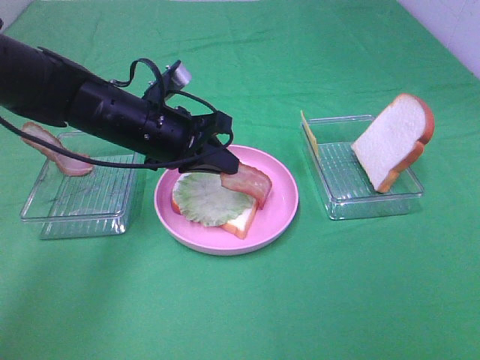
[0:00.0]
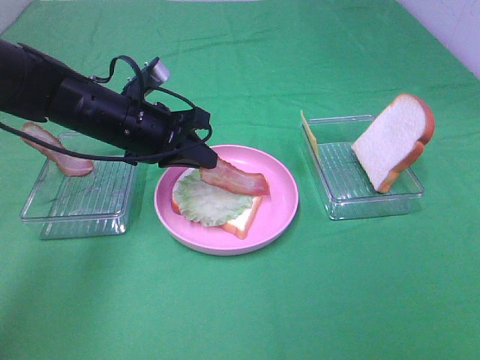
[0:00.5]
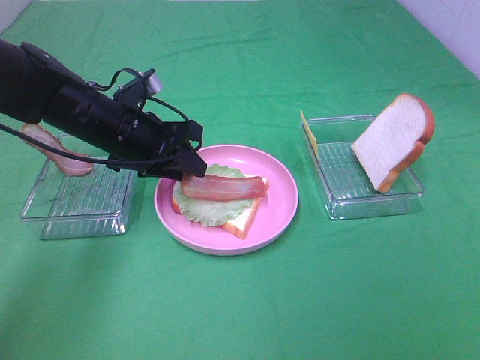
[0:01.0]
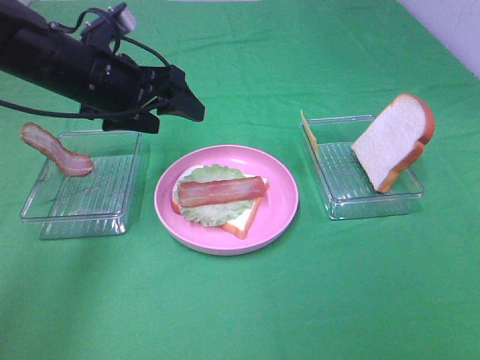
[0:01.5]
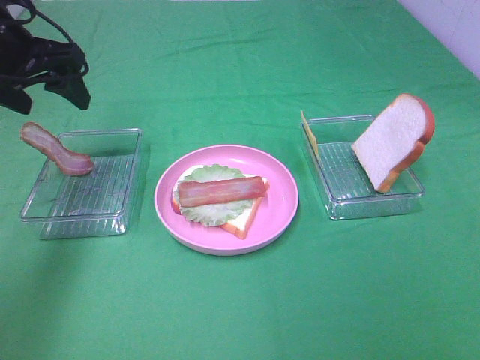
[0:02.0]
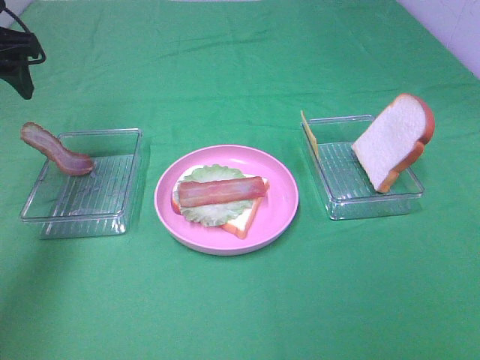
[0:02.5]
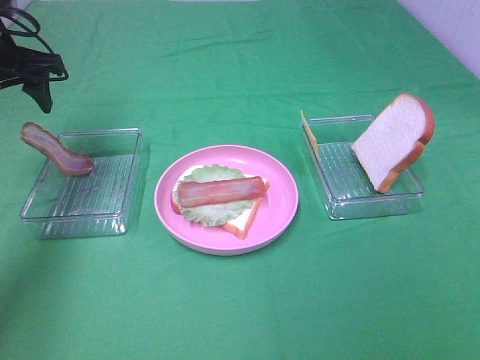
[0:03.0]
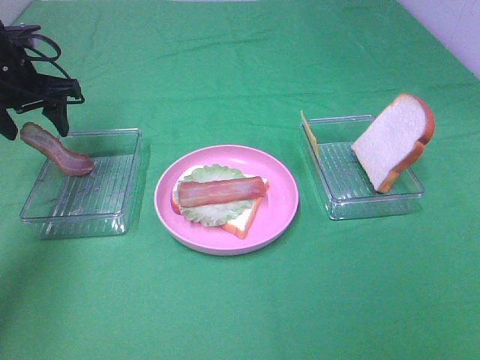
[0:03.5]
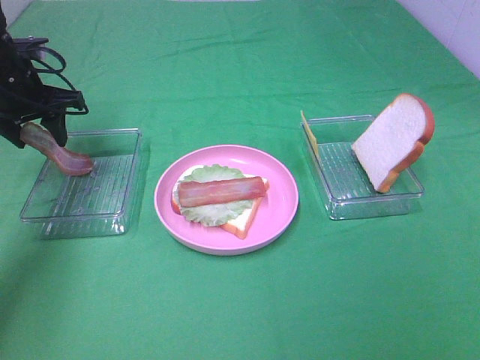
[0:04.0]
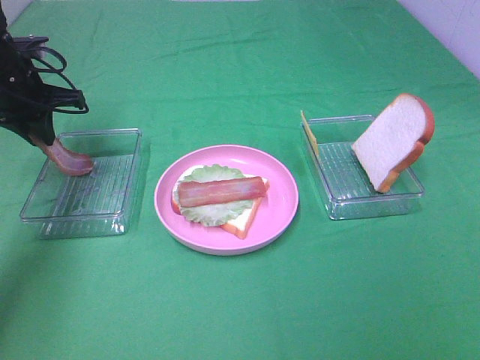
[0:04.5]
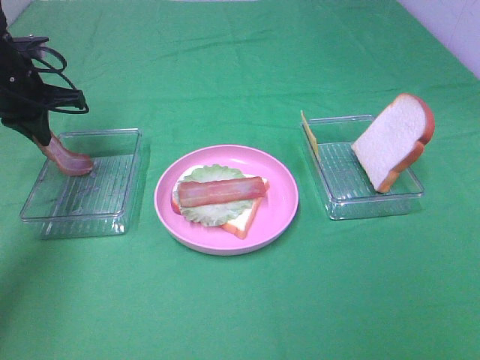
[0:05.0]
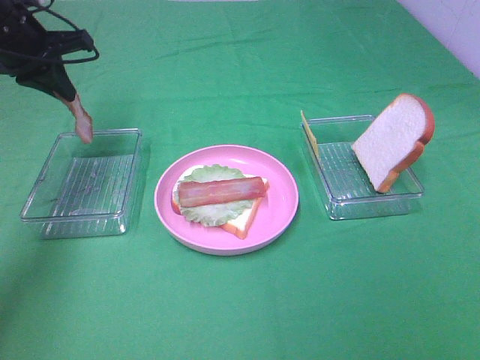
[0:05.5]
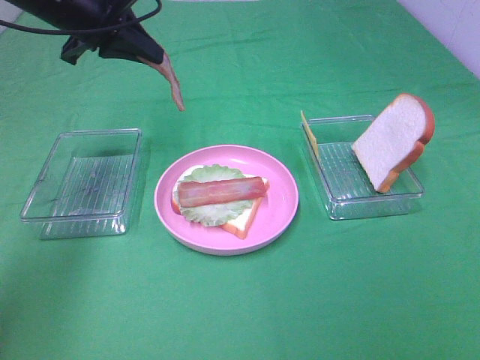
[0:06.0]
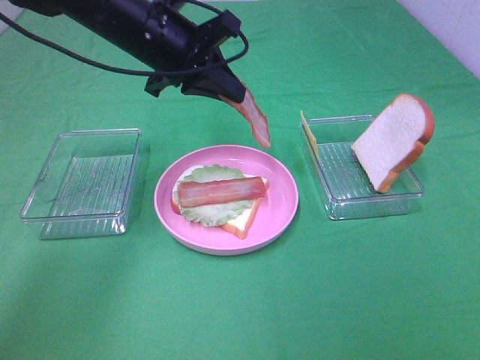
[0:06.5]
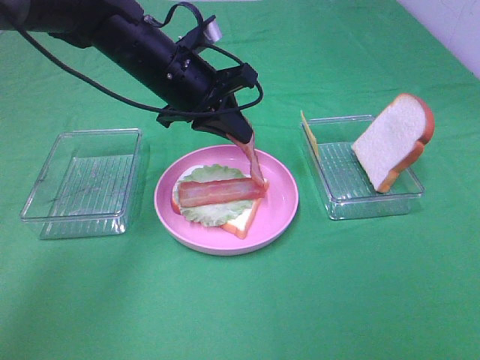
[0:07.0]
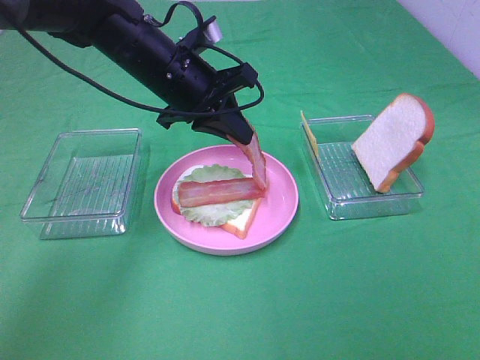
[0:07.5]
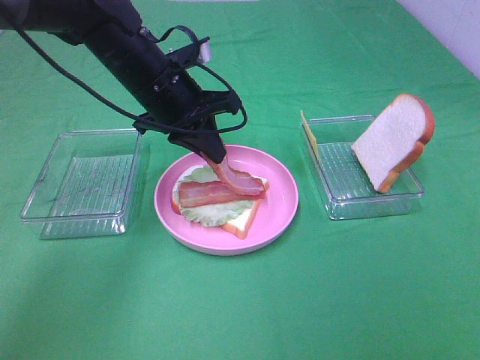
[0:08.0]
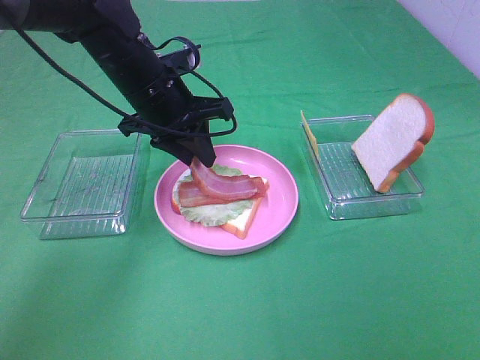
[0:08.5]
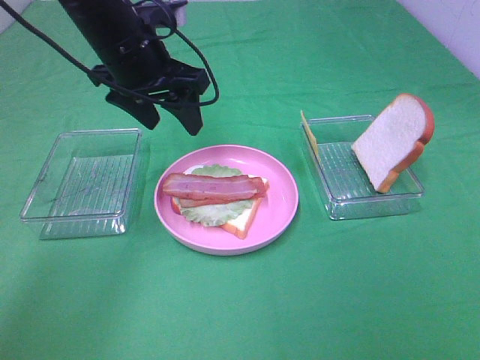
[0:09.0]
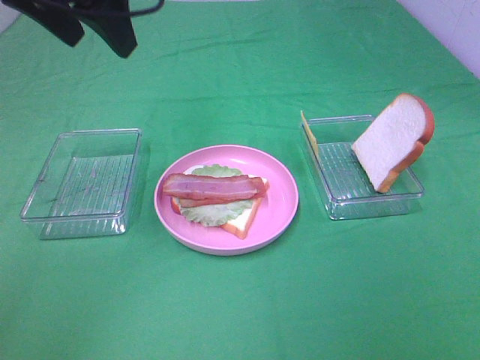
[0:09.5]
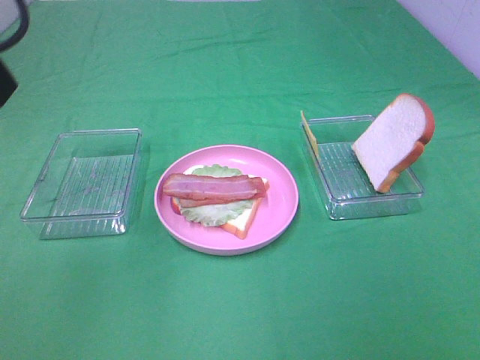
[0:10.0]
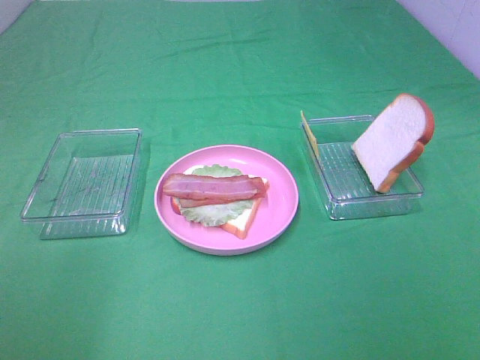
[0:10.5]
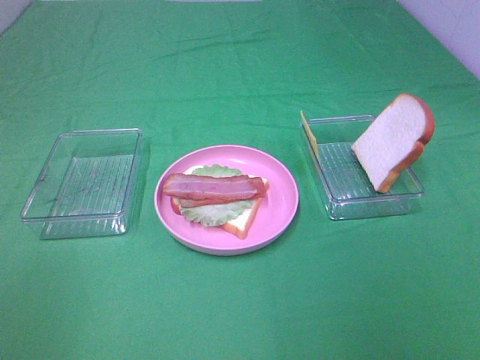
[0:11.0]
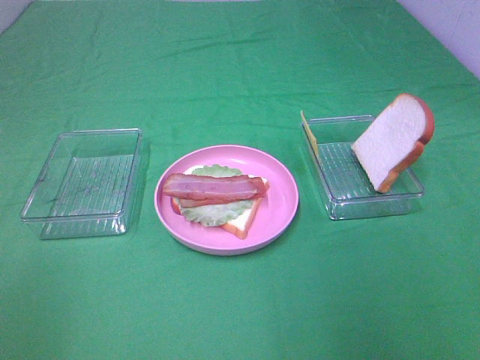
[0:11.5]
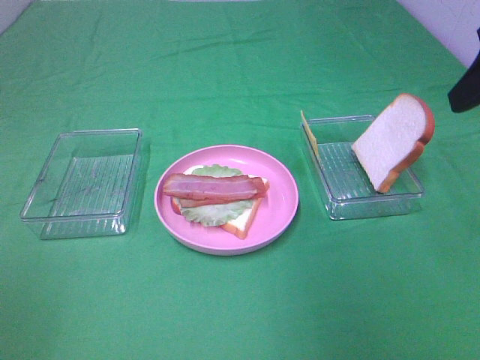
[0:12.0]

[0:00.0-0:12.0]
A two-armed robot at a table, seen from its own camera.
Task of the whole recording: Make sandwiches.
Step, 1.5 to 5.0 s: Left hand:grab the bacon.
Step, 5.5 to 9.0 s: Left hand:place bacon on bacon.
0.0 to 2.0 s: The left gripper travels to the left and upward by roughly 20 cm, and opens.
2.0 to 4.0 s: The left gripper is displaced downward and forward by roughly 10 cm.
4.0 to 6.0 s: The left gripper goes roughly 15 cm to the right and upward, and closes its fingers.
6.0 to 8.0 s: The left gripper travels to the right and downward by some 10 cm.
8.0 to 10.0 s: The left gripper travels backward, upward and to the left by approximately 30 cm, and opens.
10.0 to 12.0 s: The right gripper shifts approximately 25 cm forward, while the left gripper heads backward, to the left and downward, covering roughly 25 cm.

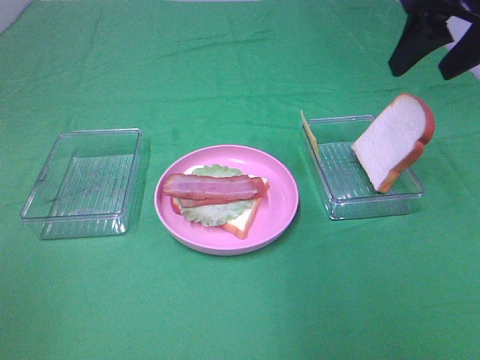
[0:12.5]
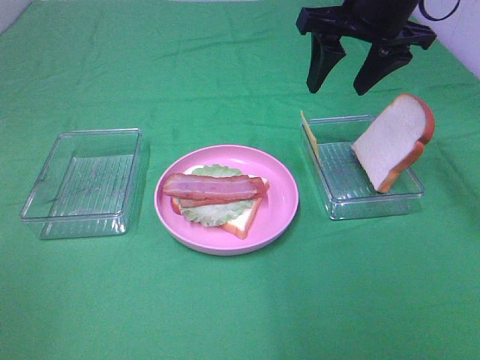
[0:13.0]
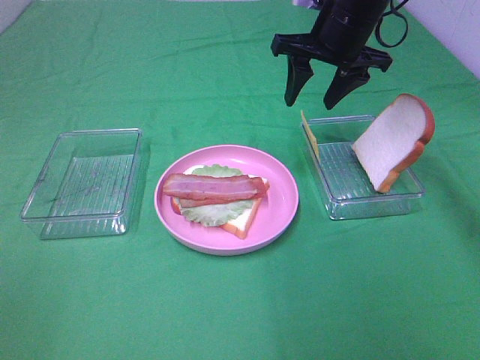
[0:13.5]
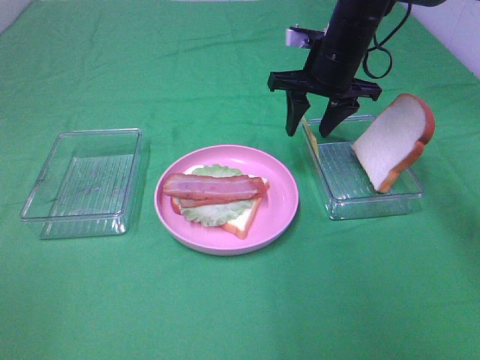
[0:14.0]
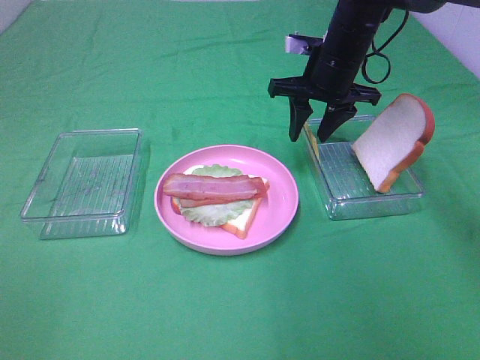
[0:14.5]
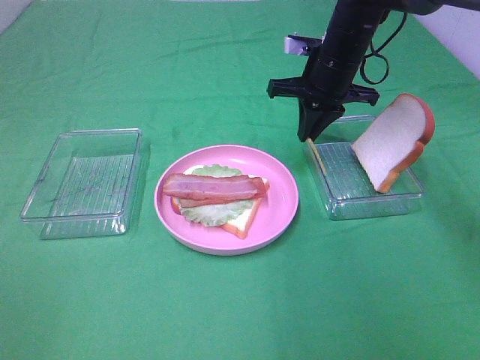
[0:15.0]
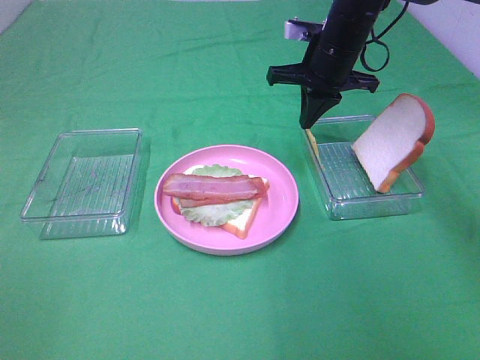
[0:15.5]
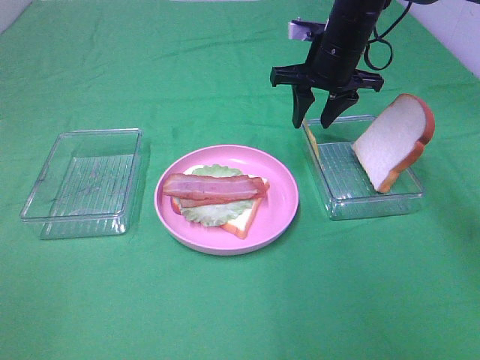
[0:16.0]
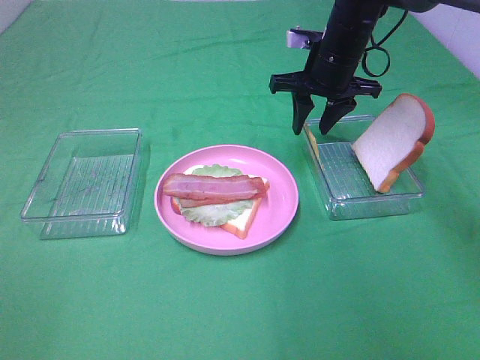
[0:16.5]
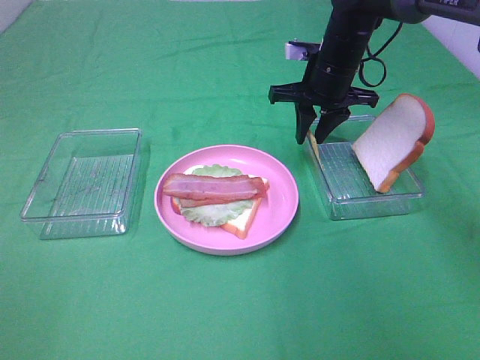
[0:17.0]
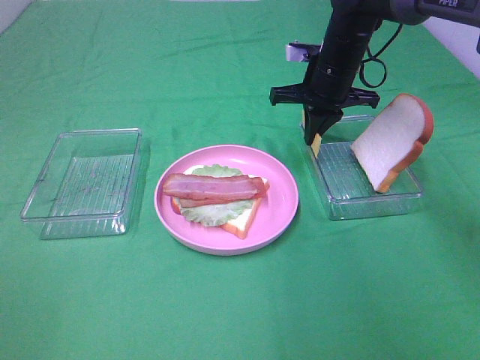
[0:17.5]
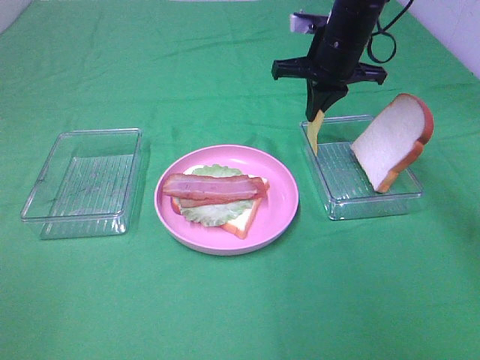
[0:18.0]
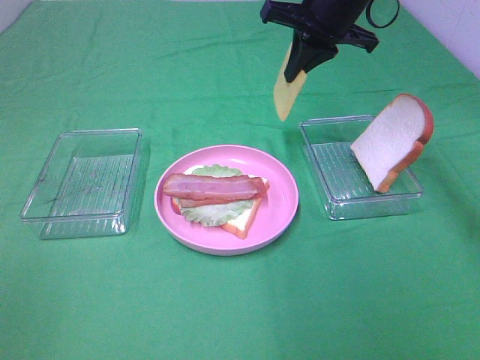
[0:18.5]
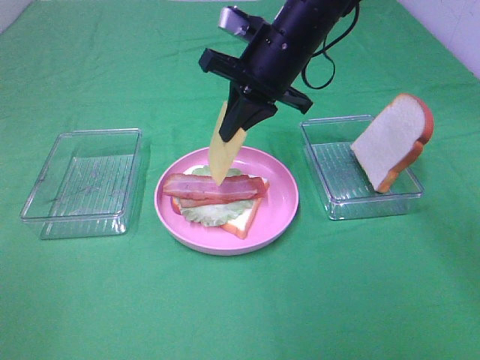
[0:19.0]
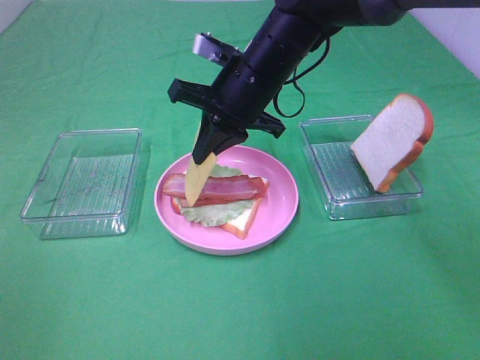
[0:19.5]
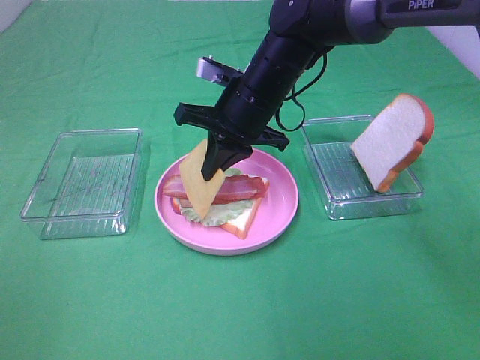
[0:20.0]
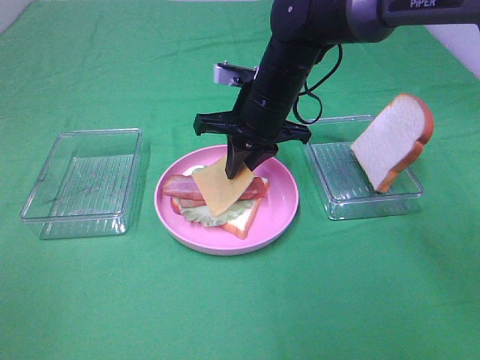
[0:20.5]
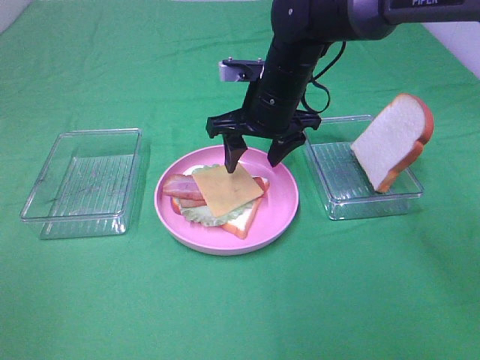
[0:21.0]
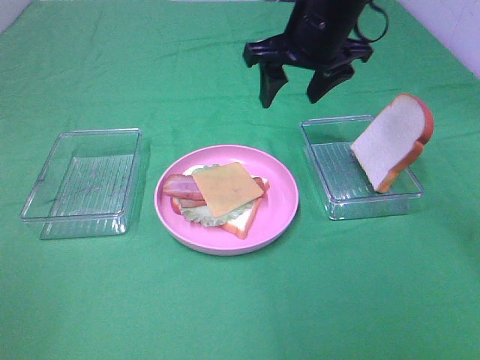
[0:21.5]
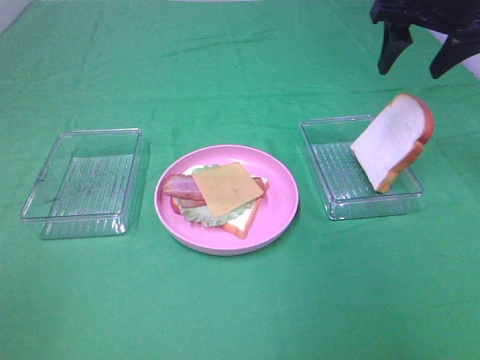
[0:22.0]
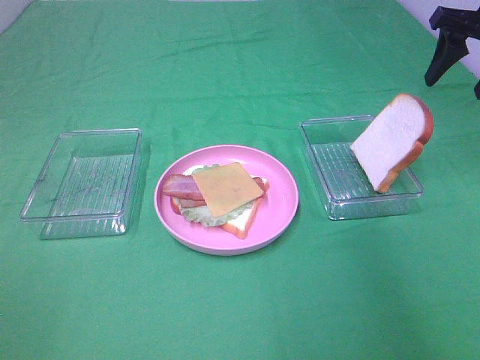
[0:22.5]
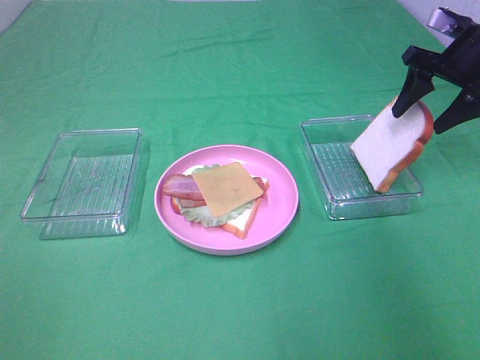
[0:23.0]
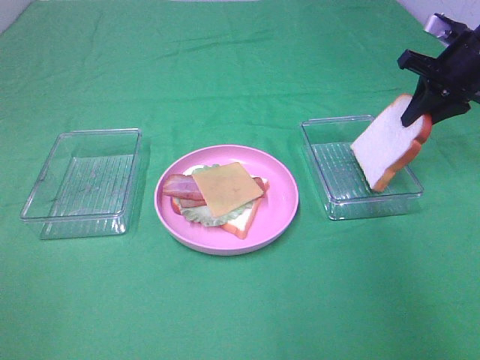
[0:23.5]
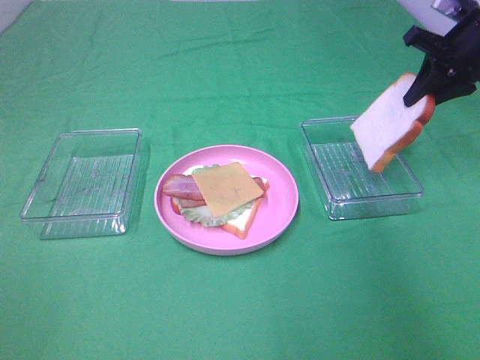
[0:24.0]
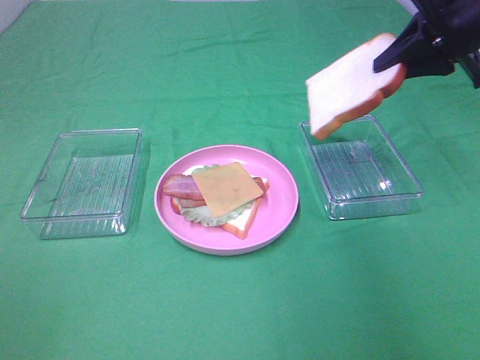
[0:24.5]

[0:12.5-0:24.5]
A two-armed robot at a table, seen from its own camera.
Task of the whole recording: Make sandwiches.
Step, 12.5 to 17.5 s: Right hand:grab the cheese slice.
Step, 18.0 to 20.5 s: Right hand:place the cheese slice on top of the bacon.
Step, 21.0 to 23.5 s: Right hand:grab the bread slice.
12.5 to 14.5 s: The right gripper travels downward, forward and to the left by about 20 cm.
14.5 to 16.5 s: The right gripper closes, then reopens.
16.5 to 18.5 s: The right gripper goes approximately 10 cm upward, and closes.
18.5 to 20.5 s: The right gripper shifts some 15 cm downward, to the left and backward.
20.5 to 22.5 s: The right gripper goes approximately 30 cm to the right and upward, and opens up.
22.5 to 24.5 s: The right gripper goes roughly 5 cm to the left, and closes its fingers.

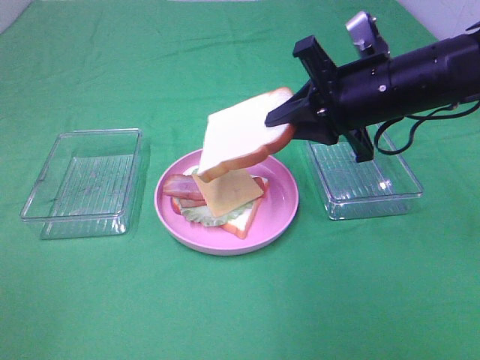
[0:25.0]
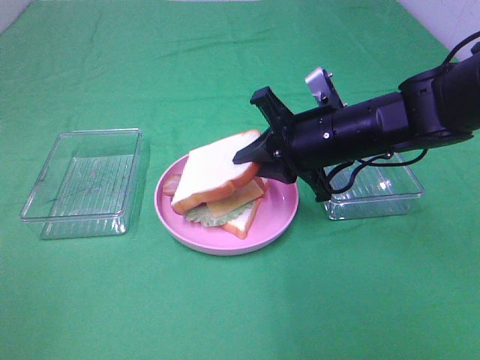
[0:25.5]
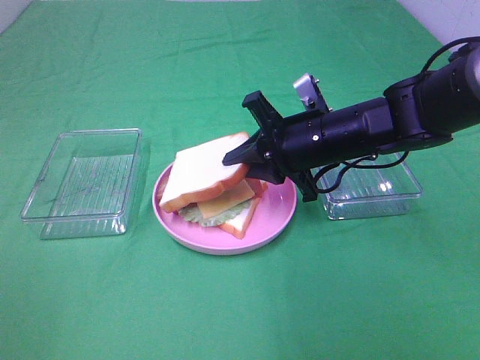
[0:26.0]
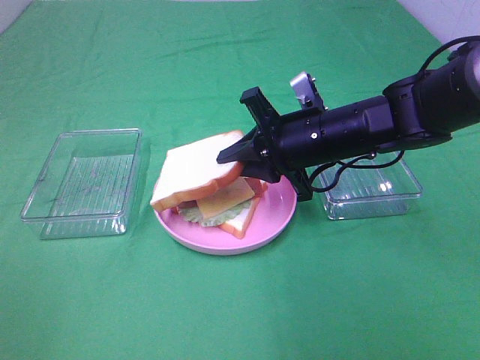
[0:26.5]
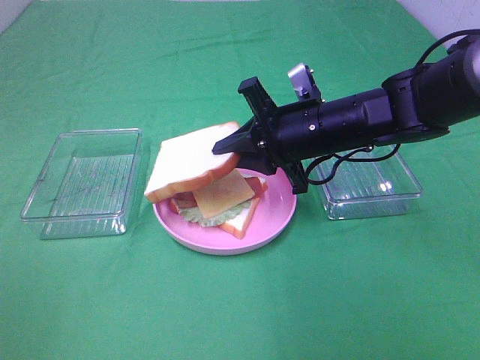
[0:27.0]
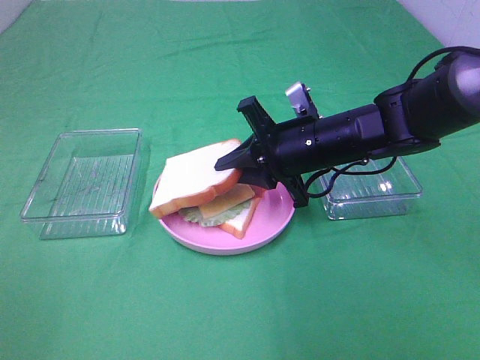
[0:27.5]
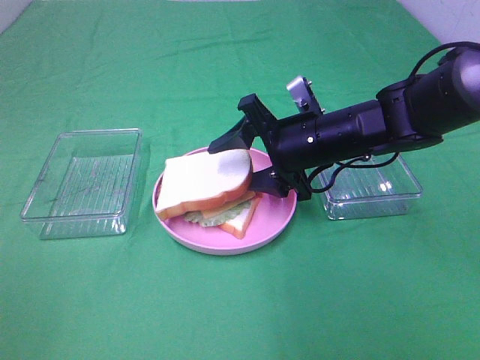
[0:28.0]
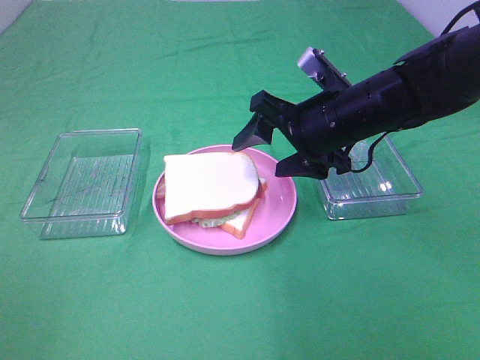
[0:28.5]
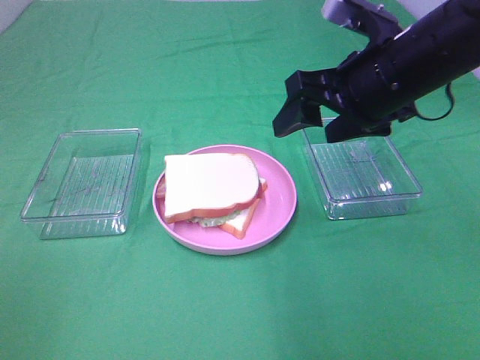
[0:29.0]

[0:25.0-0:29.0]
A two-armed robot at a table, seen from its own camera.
Task of the whole recording: Make sandwiches.
Step, 25.0 to 28.5 s: Right hand:place the bread slice on the cheese slice.
25.0 to 27.0 s: The right gripper goes roughly 5 cm downward.
27.0 to 29.0 s: The right gripper is displaced upward by approximately 10 cm, and opens.
